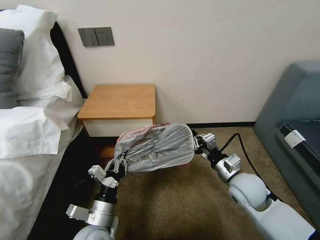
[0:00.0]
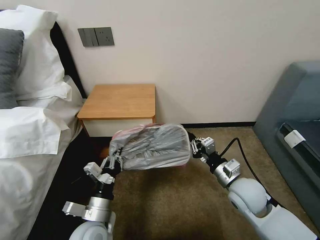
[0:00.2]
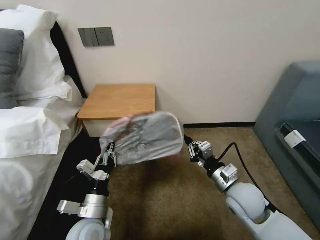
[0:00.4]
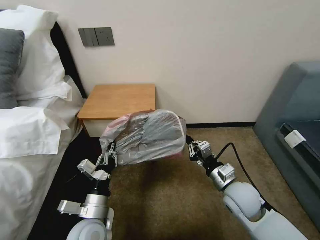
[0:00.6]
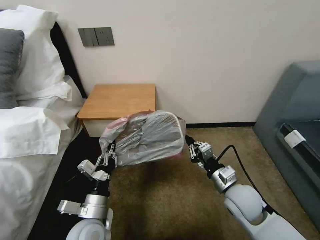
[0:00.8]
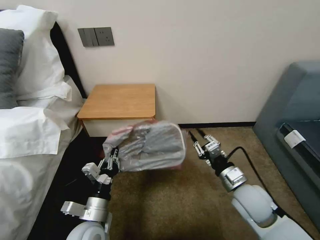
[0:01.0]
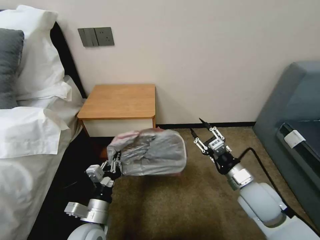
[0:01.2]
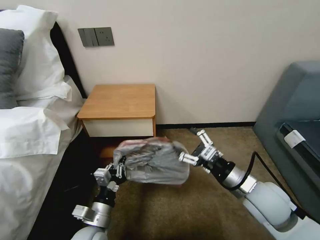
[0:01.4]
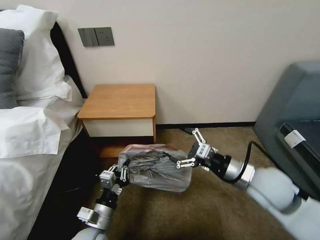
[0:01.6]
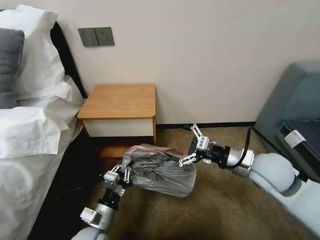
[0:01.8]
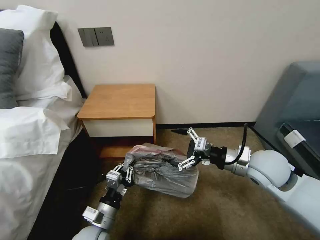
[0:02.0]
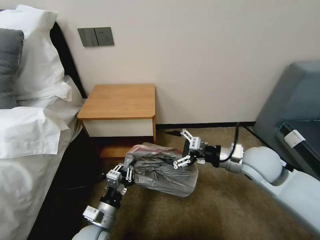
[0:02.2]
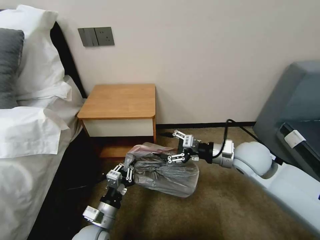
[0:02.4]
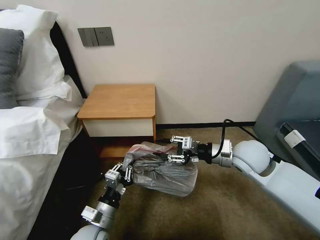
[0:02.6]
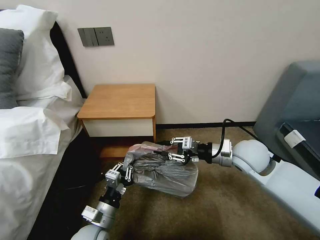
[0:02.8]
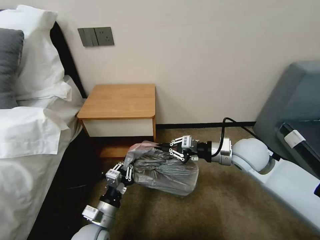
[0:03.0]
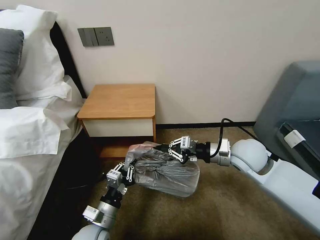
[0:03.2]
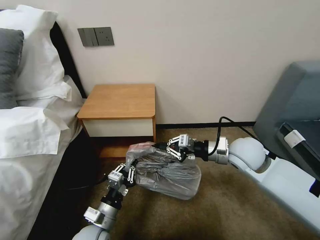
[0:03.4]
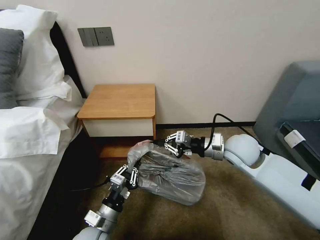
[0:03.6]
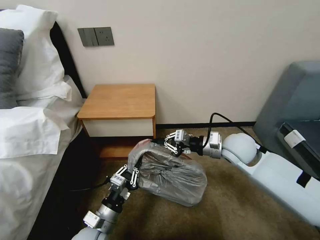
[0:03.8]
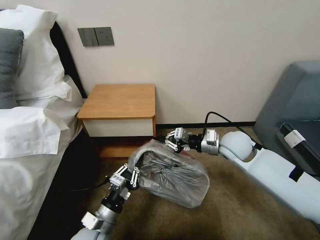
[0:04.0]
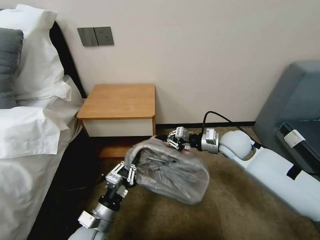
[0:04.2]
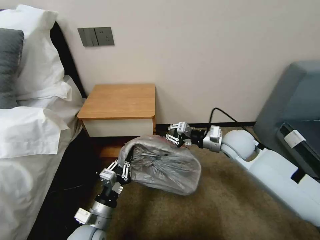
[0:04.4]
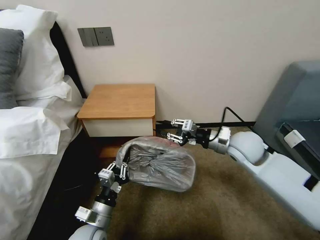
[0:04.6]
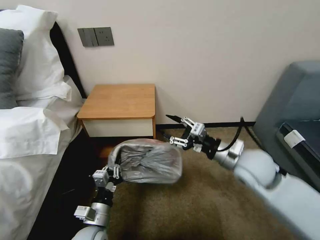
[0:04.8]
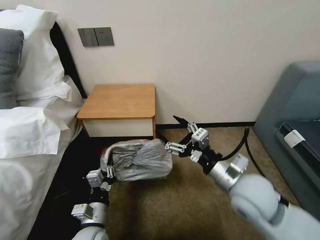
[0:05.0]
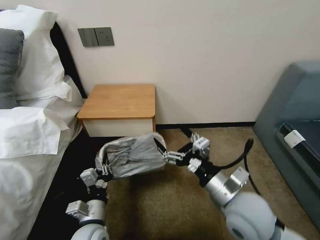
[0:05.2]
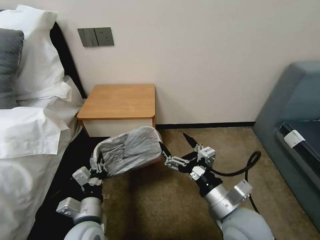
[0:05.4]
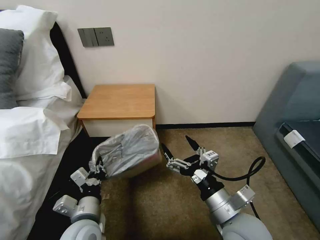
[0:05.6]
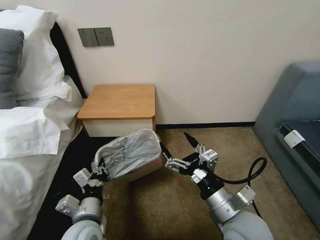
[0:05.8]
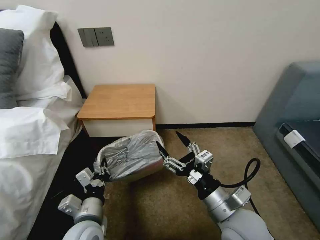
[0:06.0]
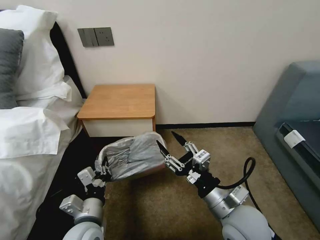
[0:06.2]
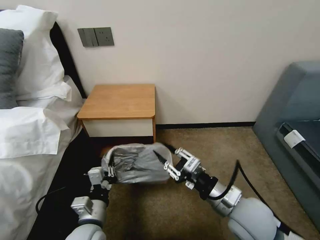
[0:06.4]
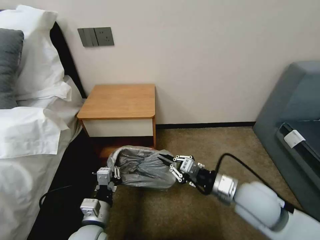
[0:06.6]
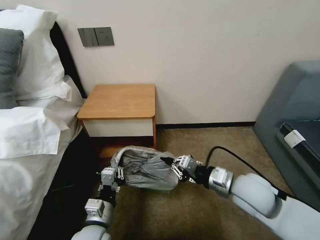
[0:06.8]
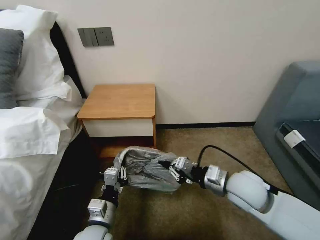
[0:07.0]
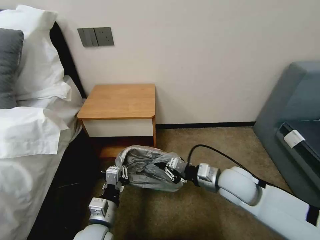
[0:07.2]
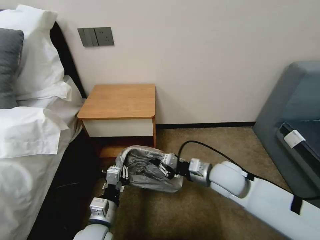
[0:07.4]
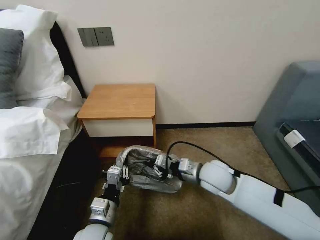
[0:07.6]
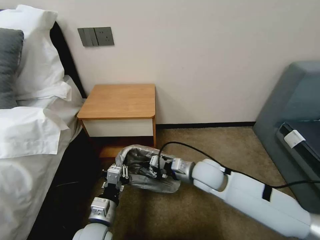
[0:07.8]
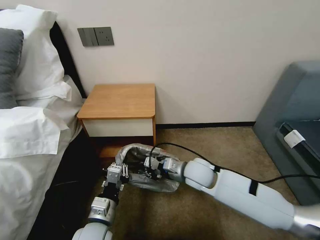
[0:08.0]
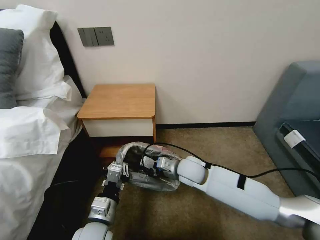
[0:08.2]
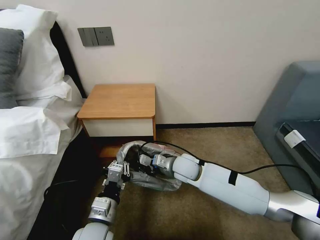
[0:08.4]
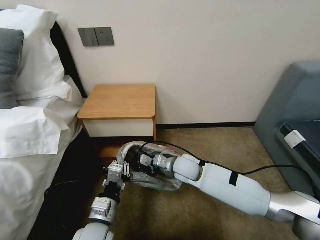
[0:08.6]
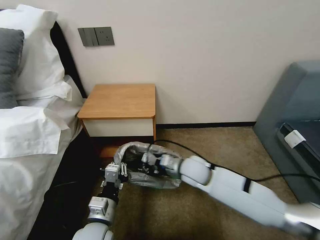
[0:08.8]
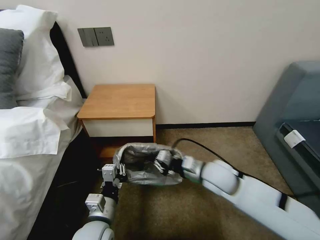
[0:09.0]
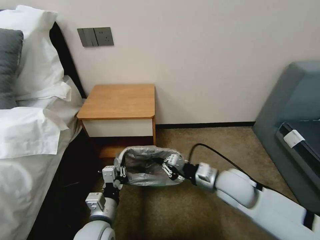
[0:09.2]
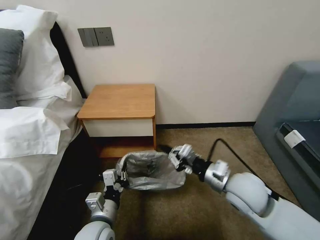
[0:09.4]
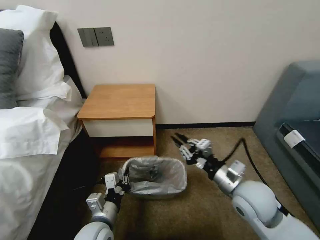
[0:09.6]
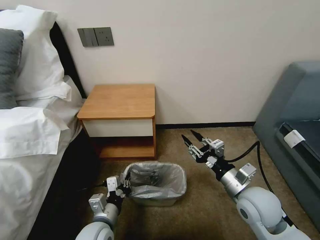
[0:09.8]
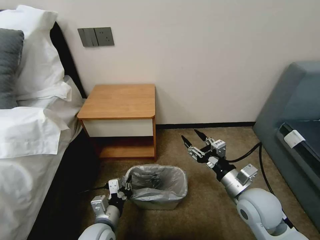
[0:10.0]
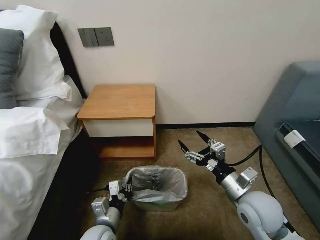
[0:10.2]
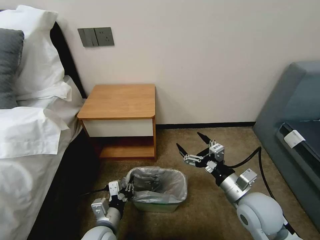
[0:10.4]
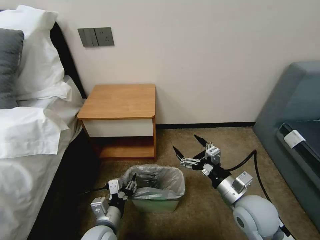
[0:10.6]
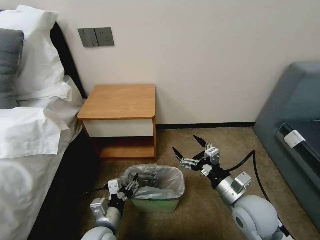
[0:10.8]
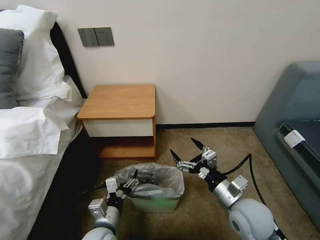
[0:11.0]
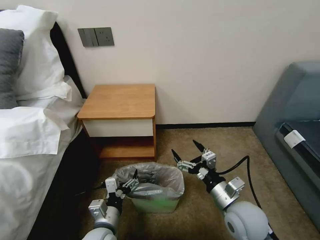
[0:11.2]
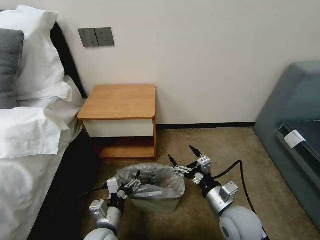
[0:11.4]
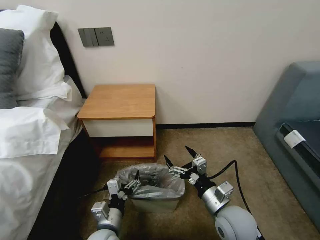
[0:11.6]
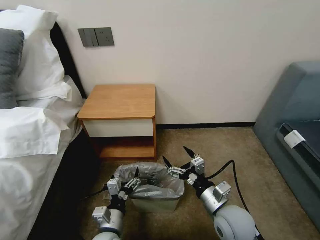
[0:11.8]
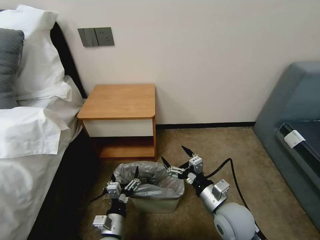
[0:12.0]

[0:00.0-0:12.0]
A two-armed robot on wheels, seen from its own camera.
Task of the whole recording: Pick up the garbage bag from the table and place it over the trash can.
0:00.0 to 0:01.6: The right gripper goes about 10 cm upward, and opens.
0:01.6 to 0:03.0: The right gripper moves forward, about 10 cm, and closes.
0:04.4 to 0:06.0: The right gripper travels backward by some 25 cm, and opens up.
0:06.0 to 0:07.6: The right gripper goes about 15 cm forward, and closes up.
0:07.6 to 0:09.0: The right gripper moves approximately 10 cm to the left and comes back.
0:09.0 to 0:10.4: The right gripper goes some 15 cm backward and to the right, and opens its fingers.
0:10.4 to 0:12.0: The right gripper travels to the left by approximately 5 cm. Meanwhile the left gripper ends up some 5 cm from where it was, and opens.

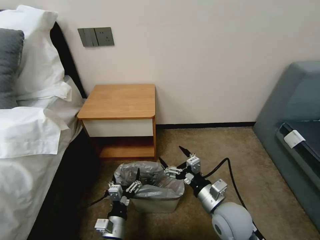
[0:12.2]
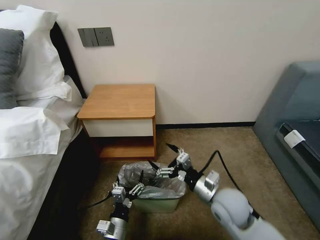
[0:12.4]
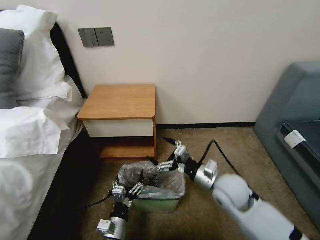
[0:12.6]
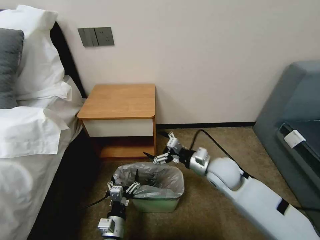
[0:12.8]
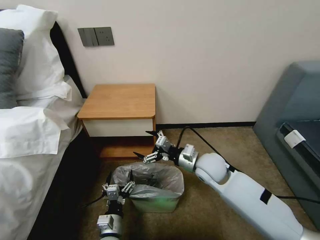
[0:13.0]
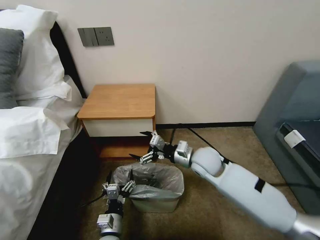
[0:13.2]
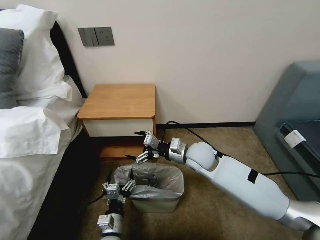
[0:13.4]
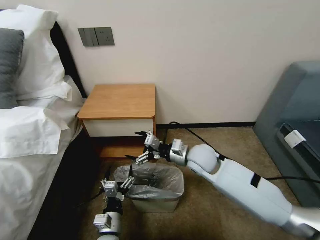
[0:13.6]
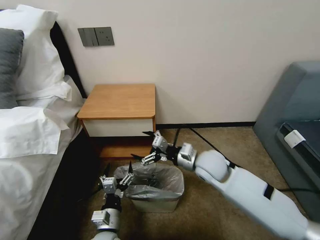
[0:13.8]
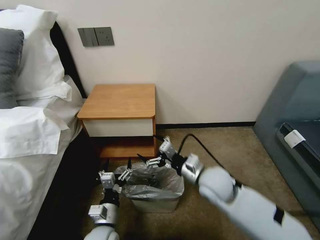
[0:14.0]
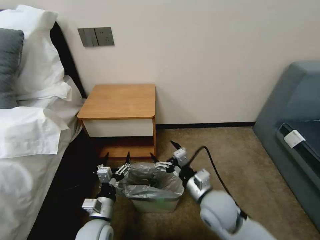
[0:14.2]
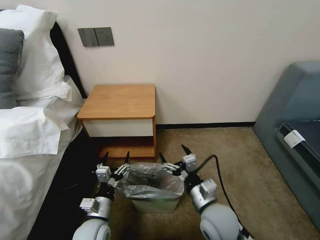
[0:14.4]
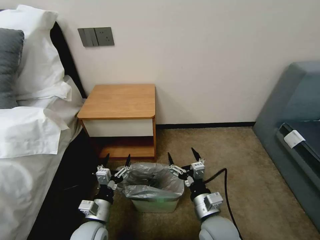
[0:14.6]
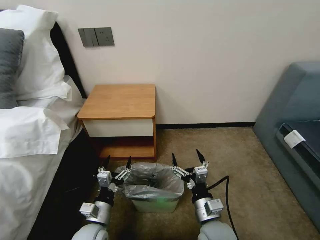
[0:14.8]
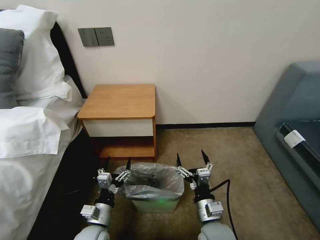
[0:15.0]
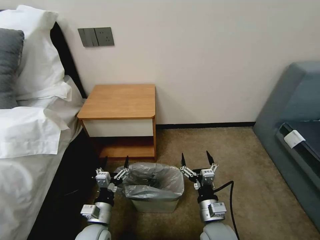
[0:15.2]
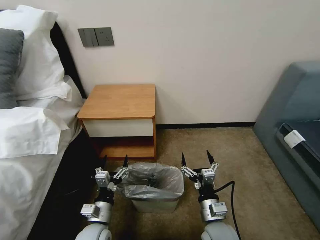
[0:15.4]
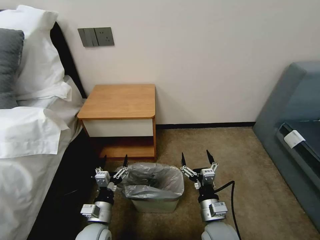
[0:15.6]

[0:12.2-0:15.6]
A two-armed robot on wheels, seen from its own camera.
Task of the whole recording: Pick up the garbage bag from the table and place it over the trash can.
0:12.2 to 0:13.8: The right gripper shifts about 15 cm forward.
0:13.8 to 0:15.6: The right gripper is displaced backward and downward by about 20 cm.
